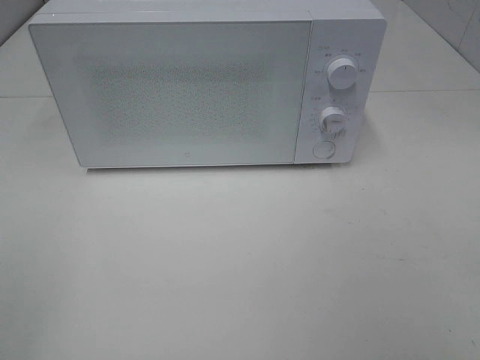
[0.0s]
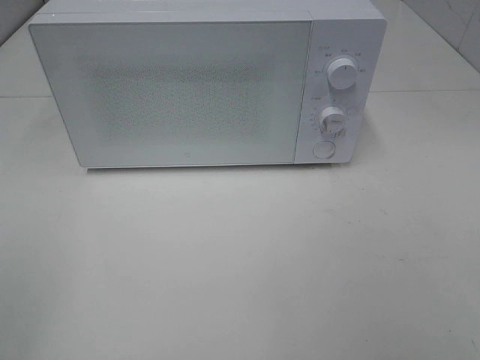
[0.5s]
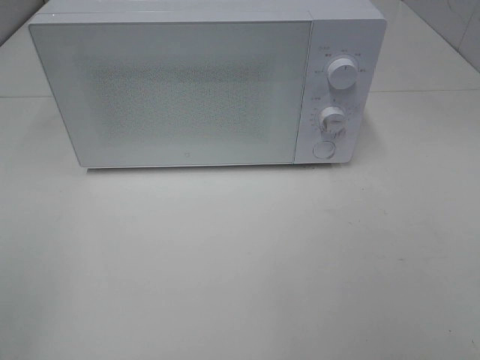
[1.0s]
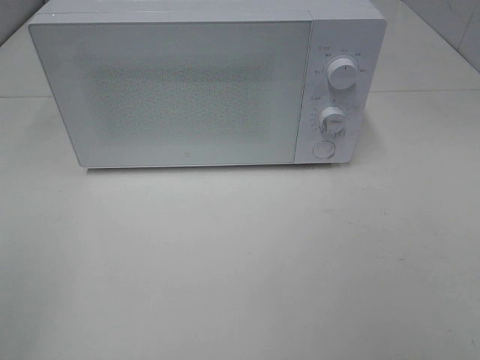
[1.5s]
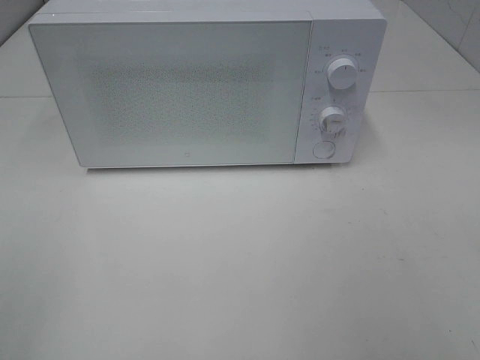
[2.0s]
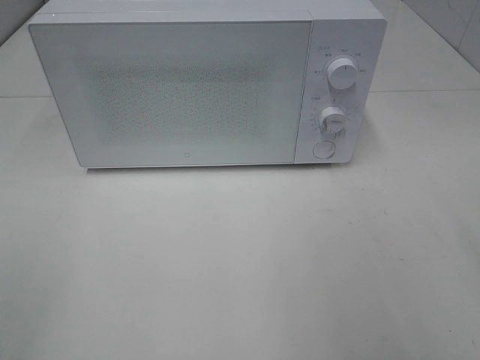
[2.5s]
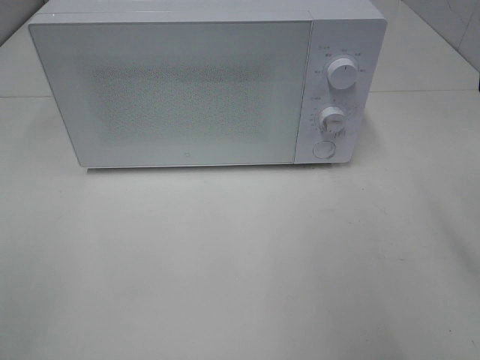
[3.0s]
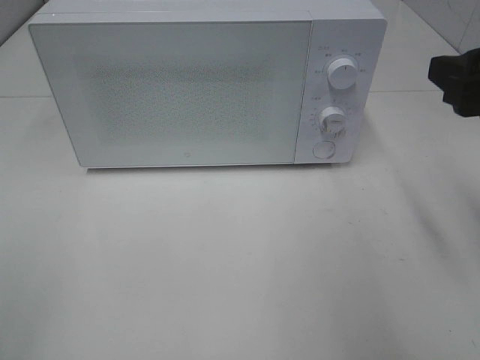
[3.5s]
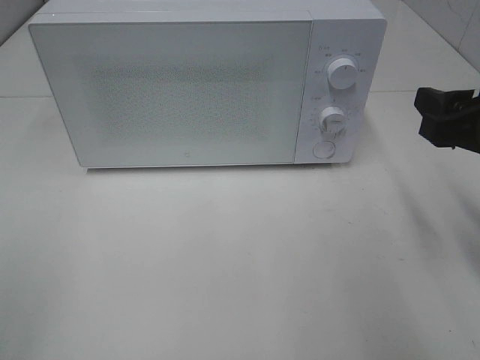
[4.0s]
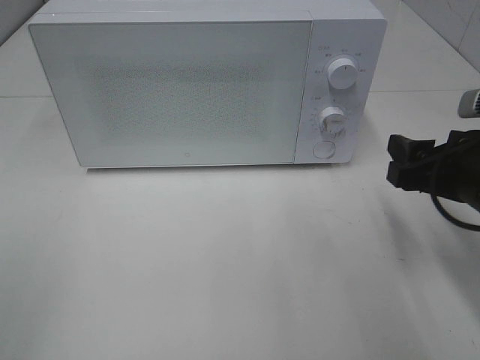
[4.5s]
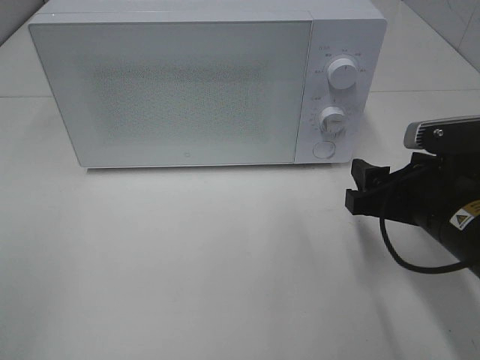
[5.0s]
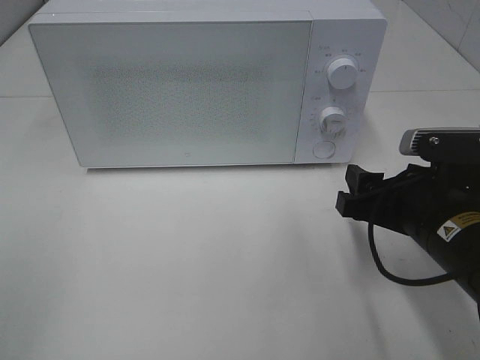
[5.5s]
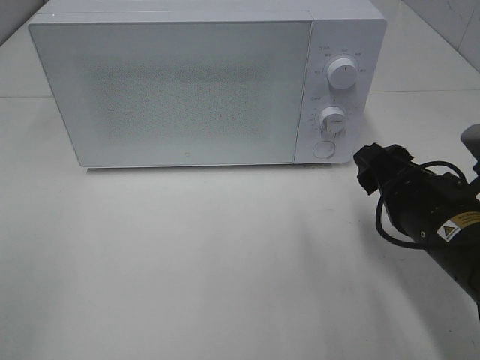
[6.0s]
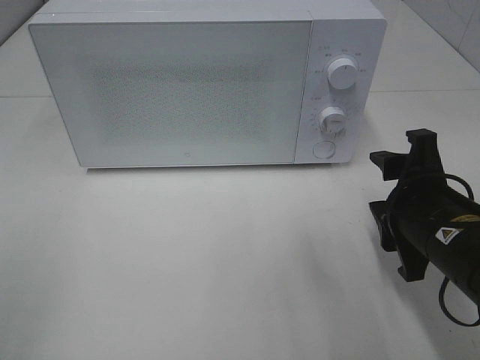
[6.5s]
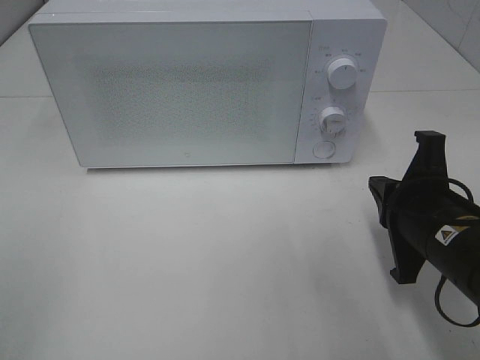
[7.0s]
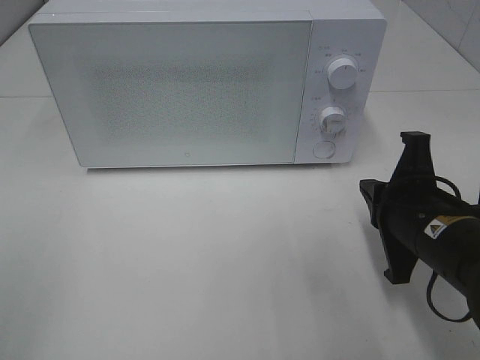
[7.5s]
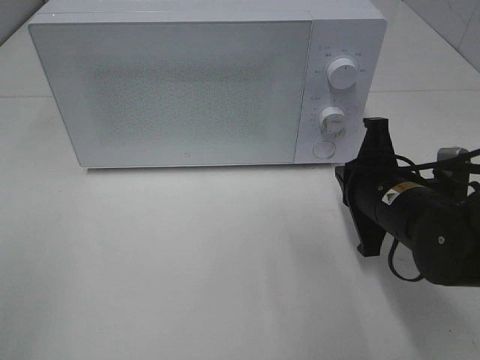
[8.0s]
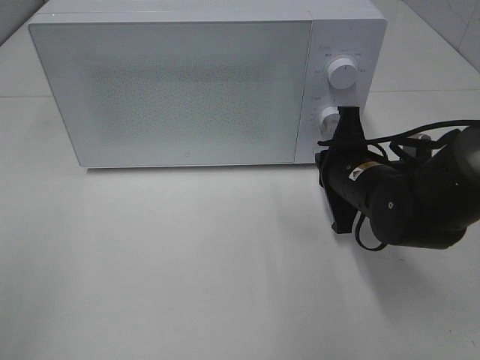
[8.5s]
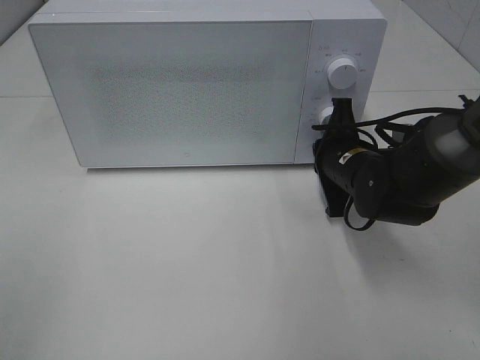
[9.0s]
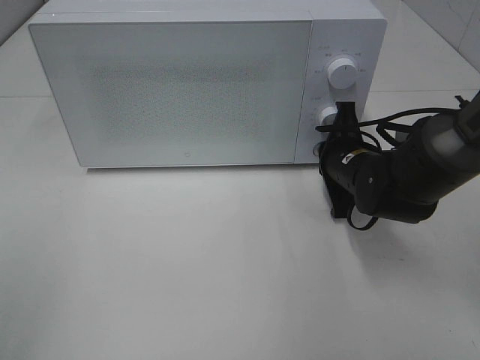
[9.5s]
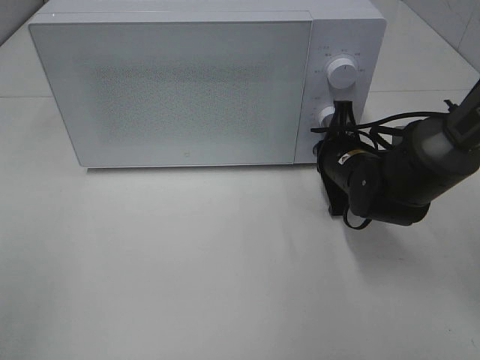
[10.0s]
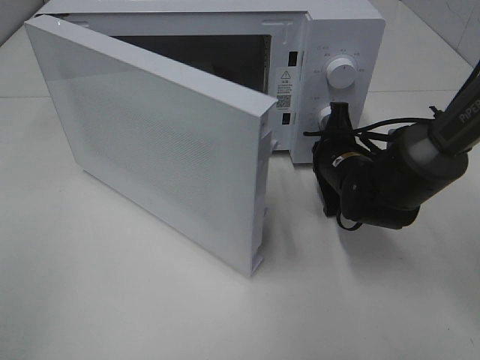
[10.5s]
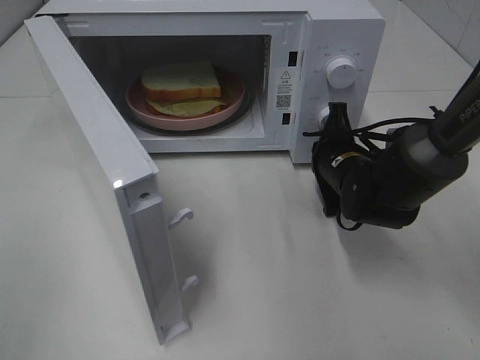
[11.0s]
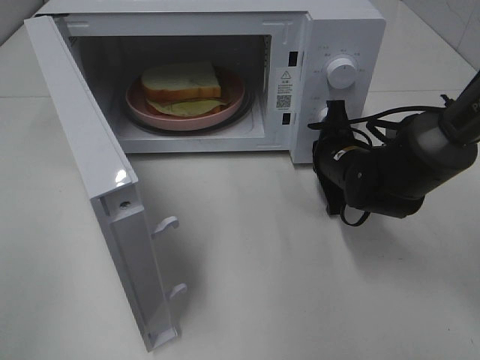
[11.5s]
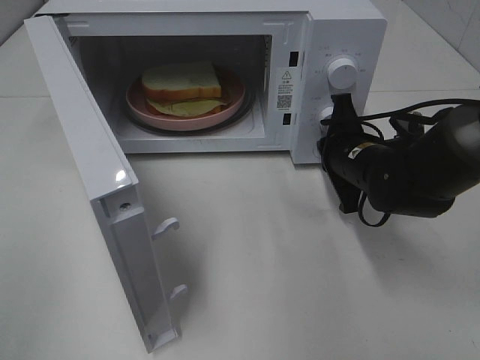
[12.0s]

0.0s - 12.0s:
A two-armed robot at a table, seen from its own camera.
Task of the whole recording: Heat Sandwich.
2.0s - 4.0s: The right gripper goes approximately 20 cm forward and downward.
4.0s - 6.0s: The right gripper is displaced downward and to the left by approximately 10 cm.
6.0s - 8.0s: The right gripper moves forward, some 5 cm, and closes its fingers.
8.0s - 10.0s: The right gripper shifts some 10 cm forward.

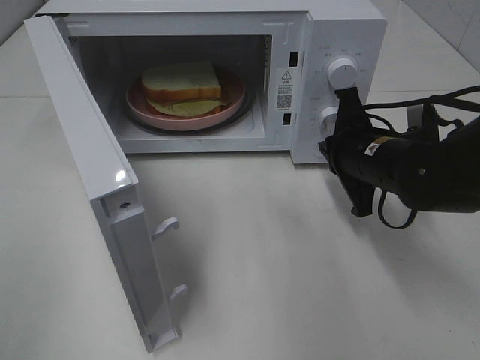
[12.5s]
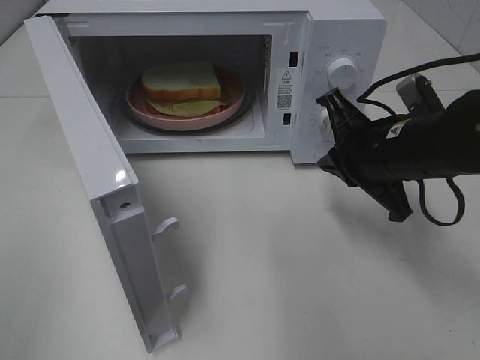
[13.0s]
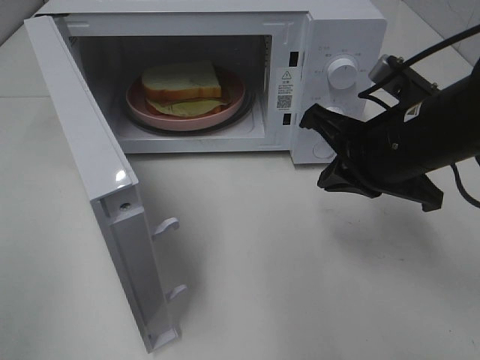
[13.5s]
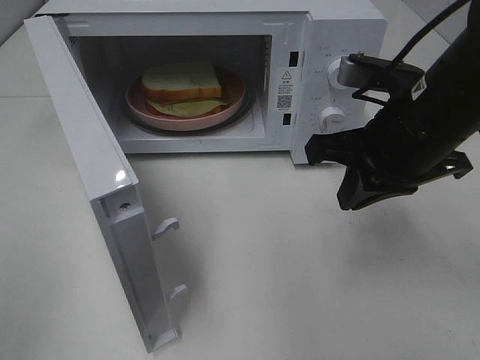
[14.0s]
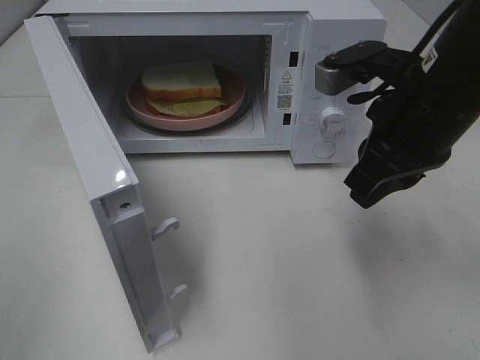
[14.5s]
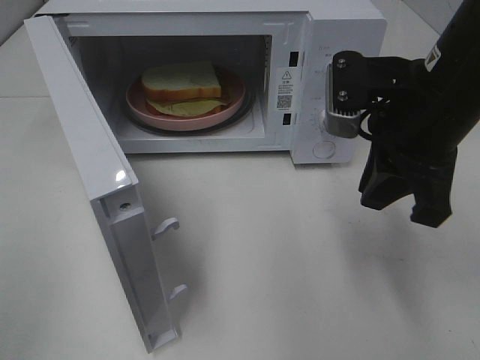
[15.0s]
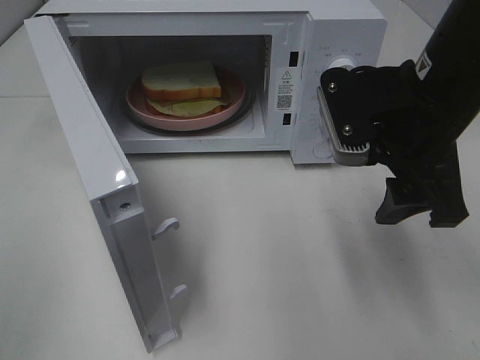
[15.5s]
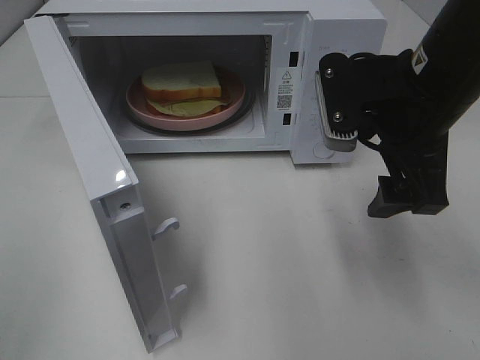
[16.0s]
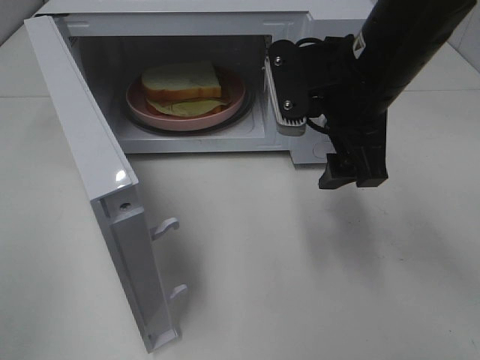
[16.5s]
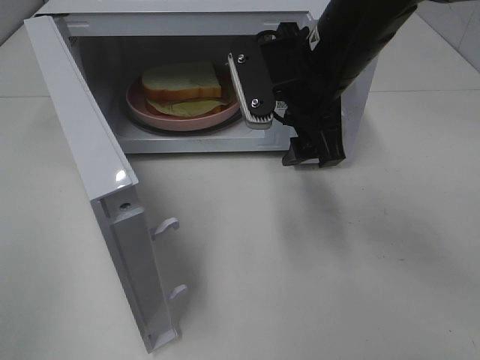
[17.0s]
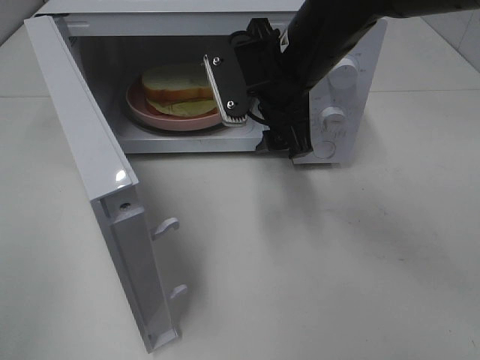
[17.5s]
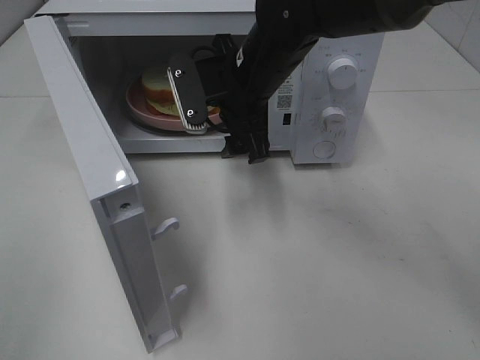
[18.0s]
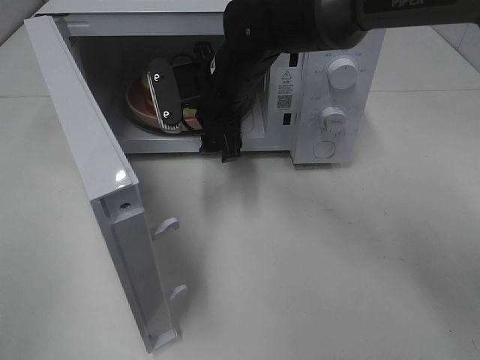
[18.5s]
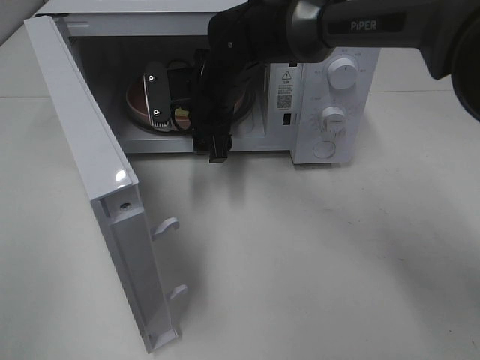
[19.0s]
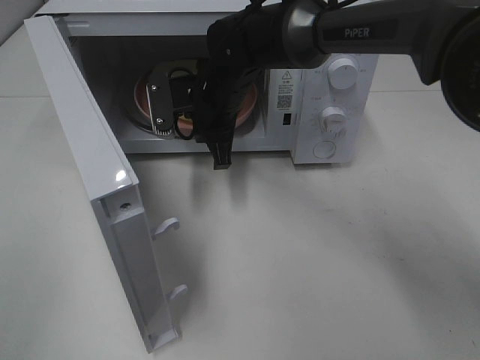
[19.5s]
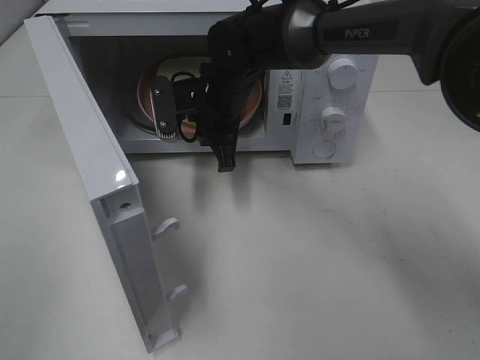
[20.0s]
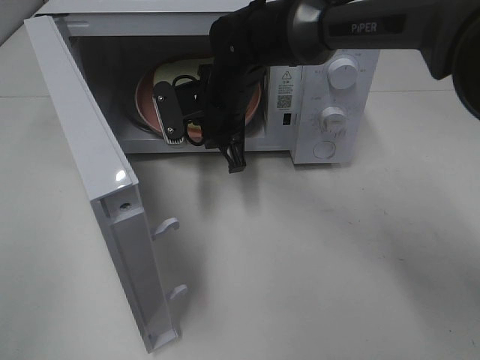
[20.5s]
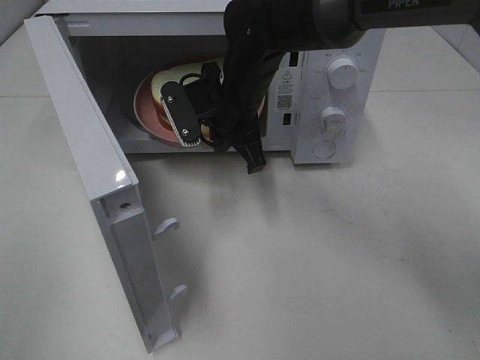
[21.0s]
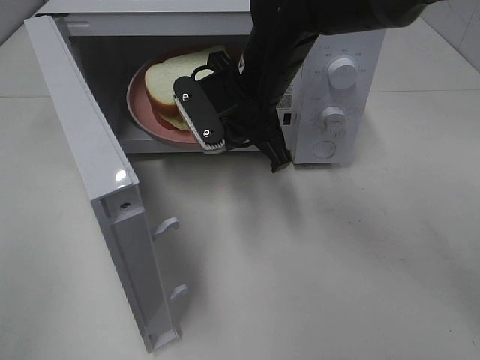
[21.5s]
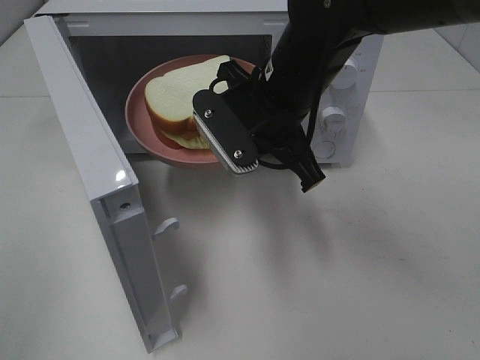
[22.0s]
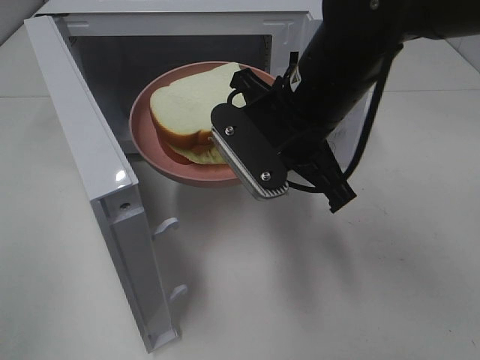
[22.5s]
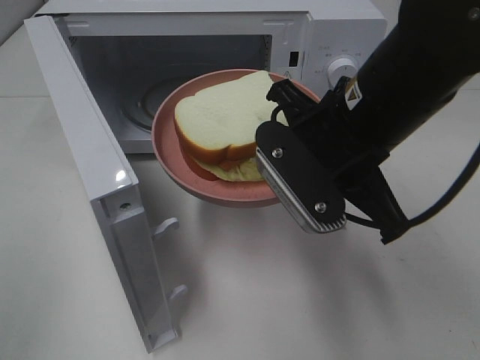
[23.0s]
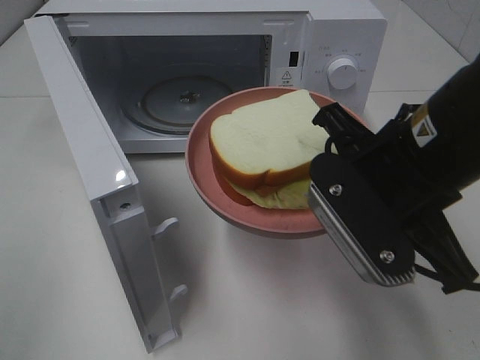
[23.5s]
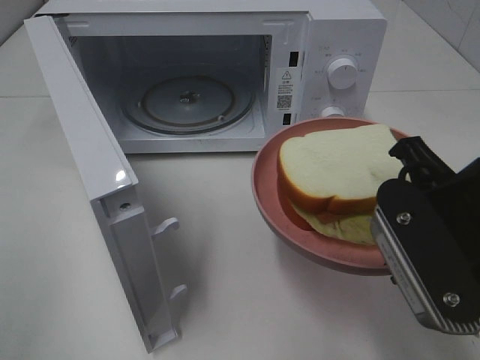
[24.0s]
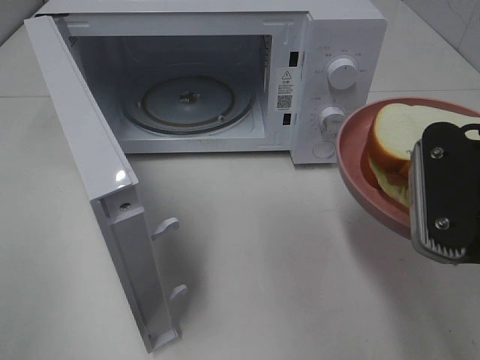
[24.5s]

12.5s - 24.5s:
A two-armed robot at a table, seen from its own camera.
Task of the whole recording: Heat Sandwich.
Step, 12.5s - 20.0s: Right hand: grab the plate with the sandwich.
12.5s - 14.5s: The right gripper travels upward and backward by roughly 15 cm.
14.5s - 16.5s: The right gripper shifts by roughly 5 cm, and opens its fingers.
16.5s - 18.5s: The right gripper moves to the left, forward and downward, about 15 cm.
18.5s - 20.5s: The right gripper closes up.
20.5s - 22.5s: The right gripper heads backward, upward and to the right, covering about 15 cm.
22.5s - 24.5s: The right gripper goes roughly 20 cm backward and to the right.

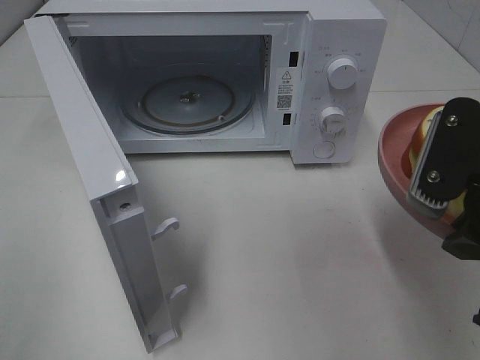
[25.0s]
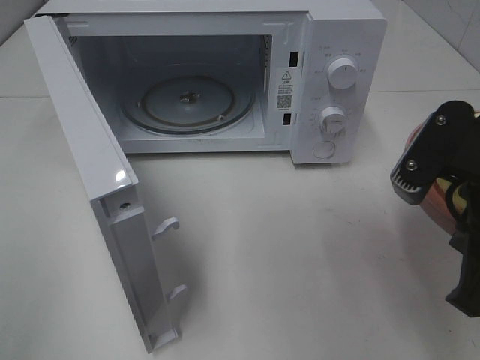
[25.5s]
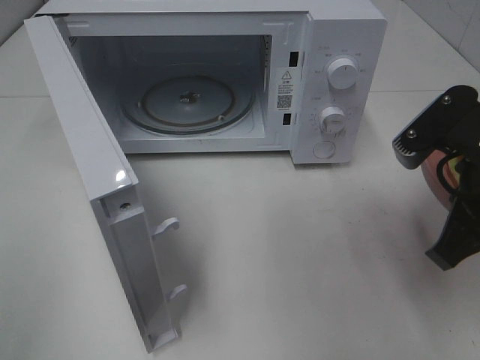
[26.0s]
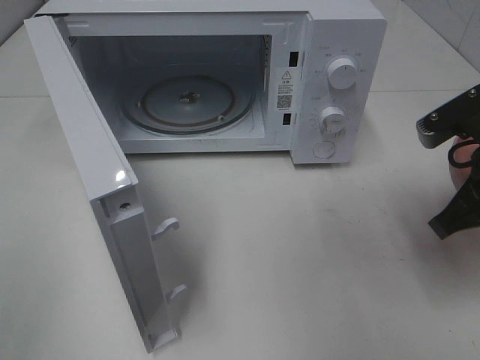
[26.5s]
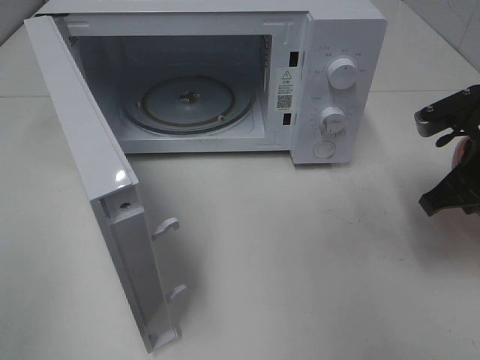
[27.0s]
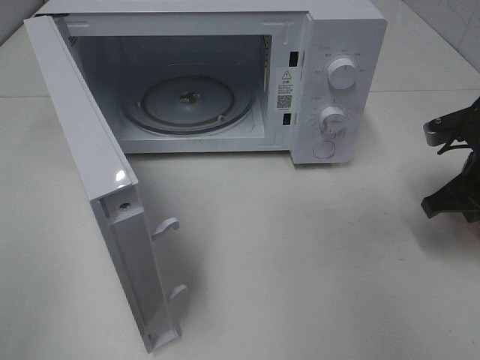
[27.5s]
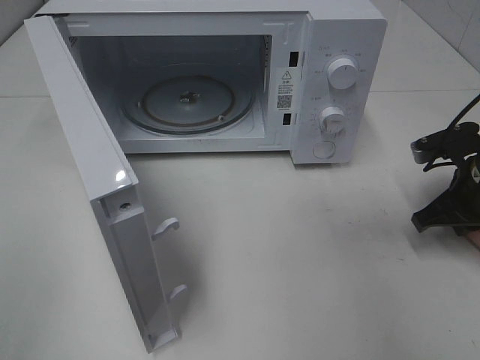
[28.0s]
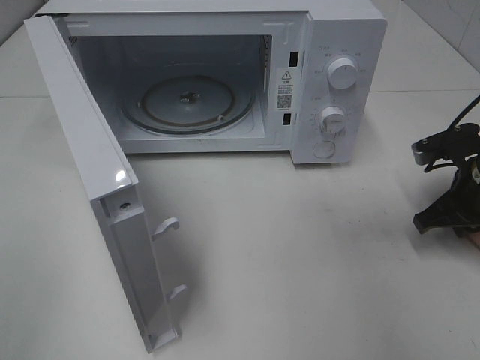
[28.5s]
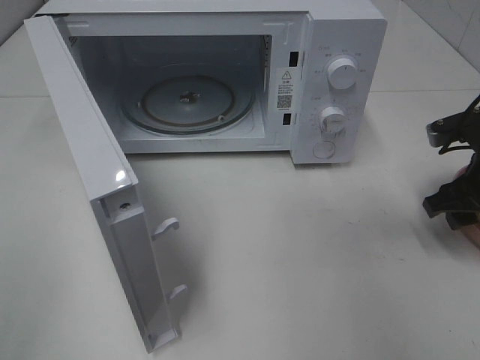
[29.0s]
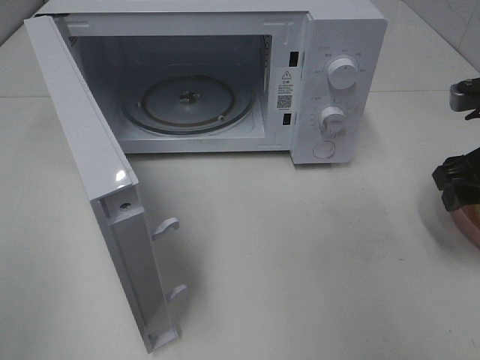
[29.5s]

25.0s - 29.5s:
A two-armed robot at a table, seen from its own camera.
Task of the whole recording: Heat Sandwich.
25.0s - 27.0s: The right gripper shifts roughly 15 cm forward, downward and to the right.
27.0s - 29.5s: The right gripper travels downward and back again, approximately 5 cm each way, and opens its fingers.
